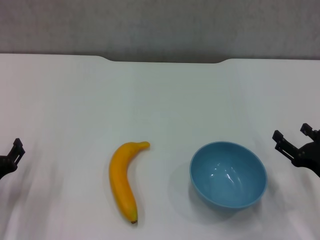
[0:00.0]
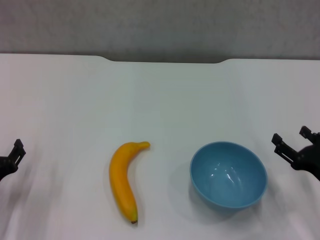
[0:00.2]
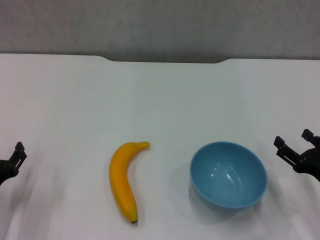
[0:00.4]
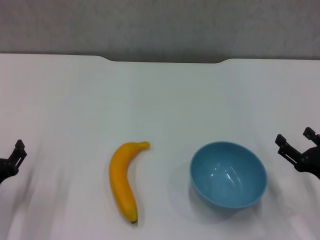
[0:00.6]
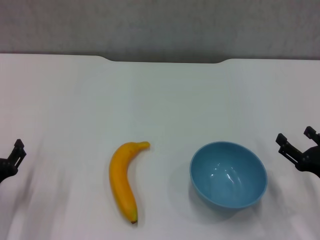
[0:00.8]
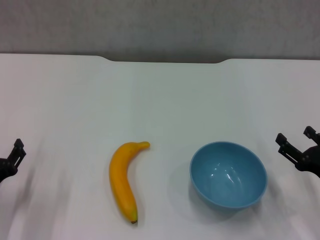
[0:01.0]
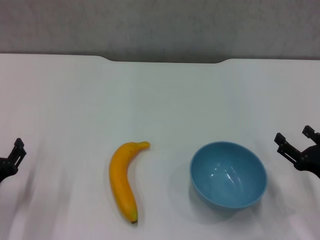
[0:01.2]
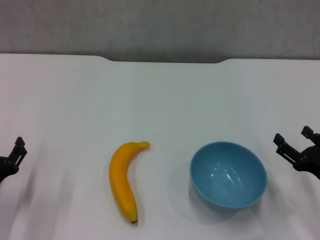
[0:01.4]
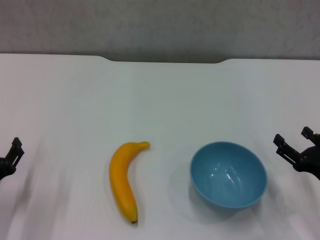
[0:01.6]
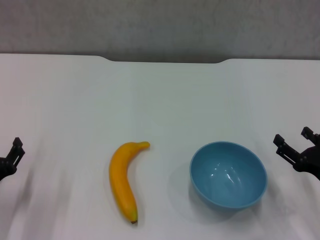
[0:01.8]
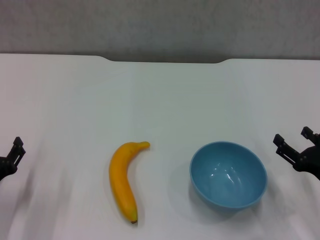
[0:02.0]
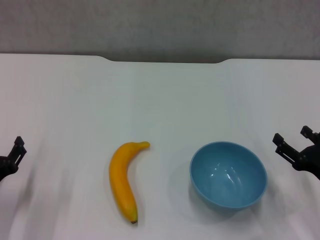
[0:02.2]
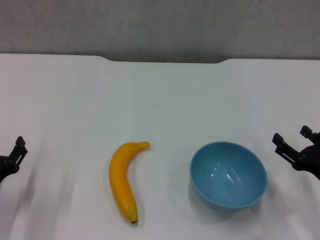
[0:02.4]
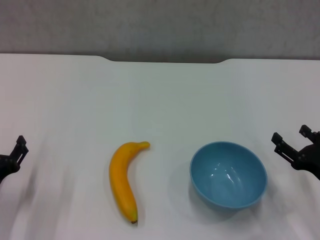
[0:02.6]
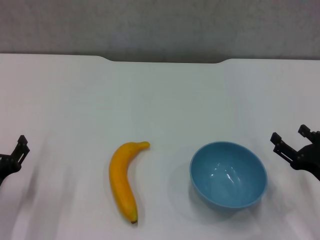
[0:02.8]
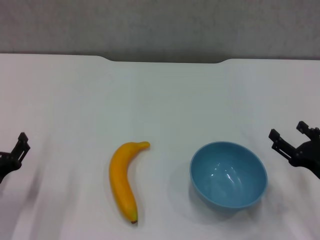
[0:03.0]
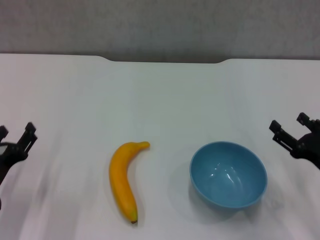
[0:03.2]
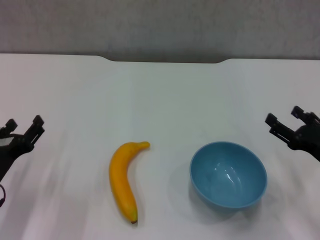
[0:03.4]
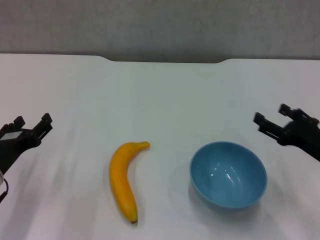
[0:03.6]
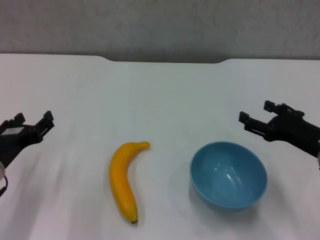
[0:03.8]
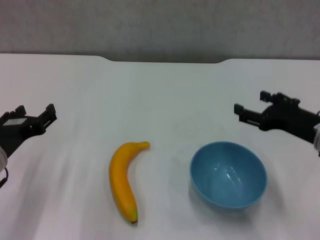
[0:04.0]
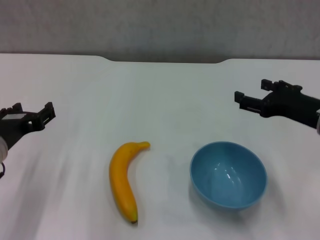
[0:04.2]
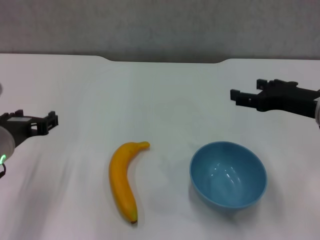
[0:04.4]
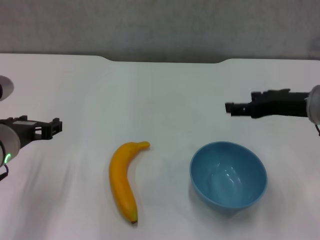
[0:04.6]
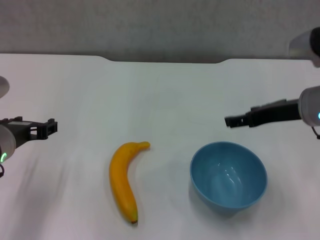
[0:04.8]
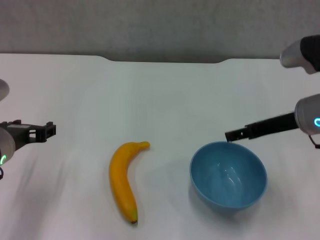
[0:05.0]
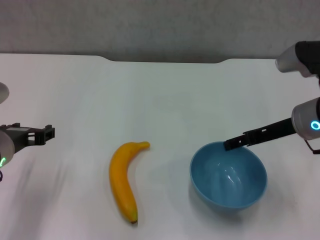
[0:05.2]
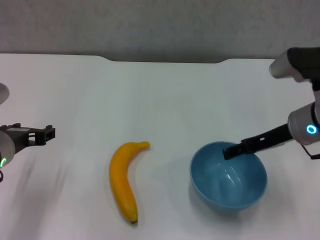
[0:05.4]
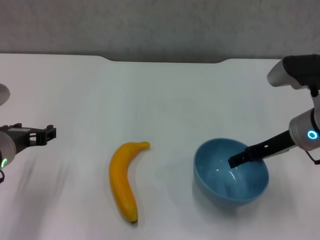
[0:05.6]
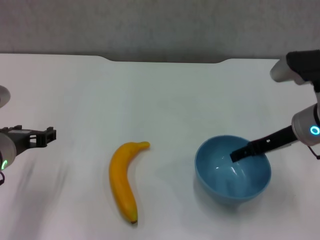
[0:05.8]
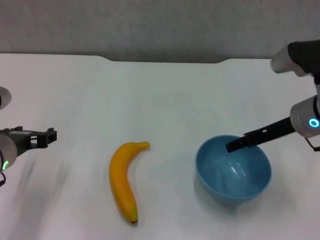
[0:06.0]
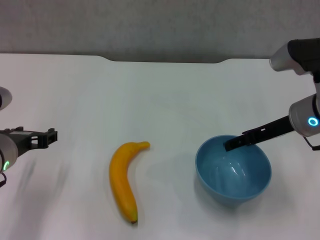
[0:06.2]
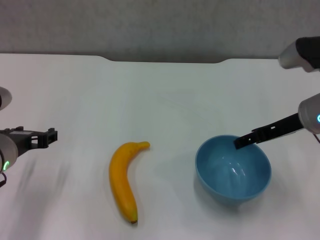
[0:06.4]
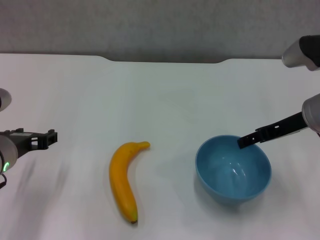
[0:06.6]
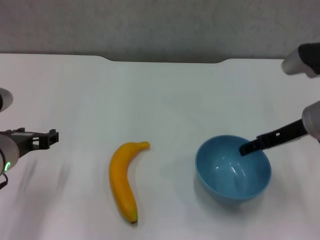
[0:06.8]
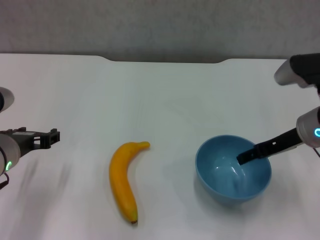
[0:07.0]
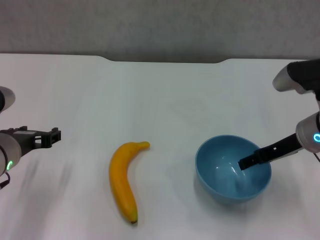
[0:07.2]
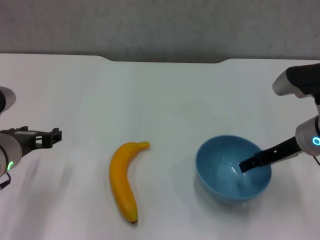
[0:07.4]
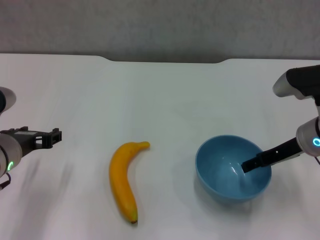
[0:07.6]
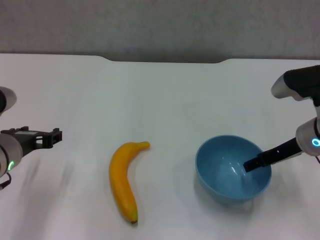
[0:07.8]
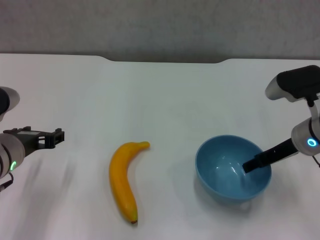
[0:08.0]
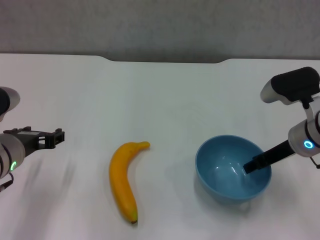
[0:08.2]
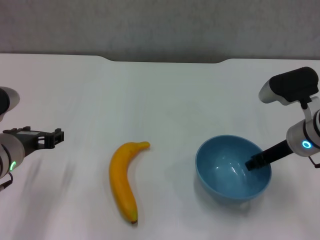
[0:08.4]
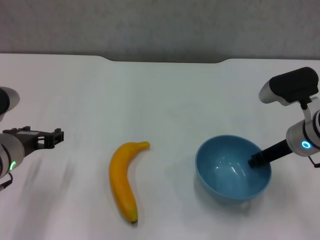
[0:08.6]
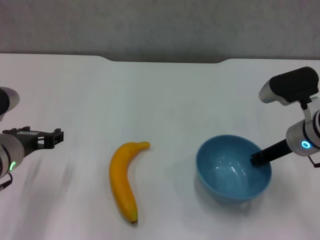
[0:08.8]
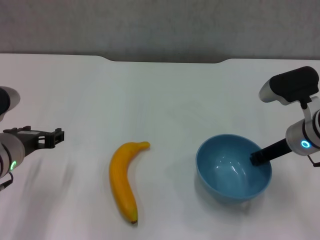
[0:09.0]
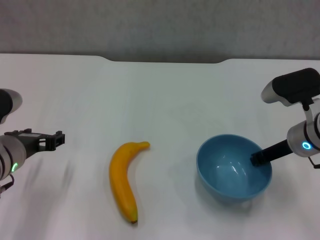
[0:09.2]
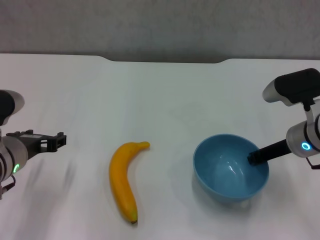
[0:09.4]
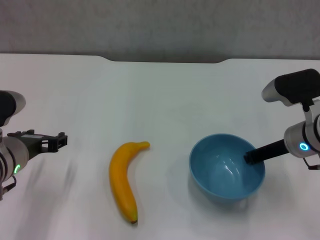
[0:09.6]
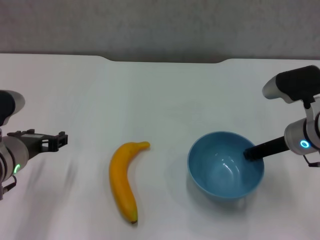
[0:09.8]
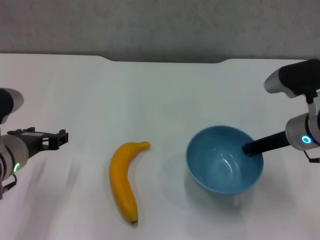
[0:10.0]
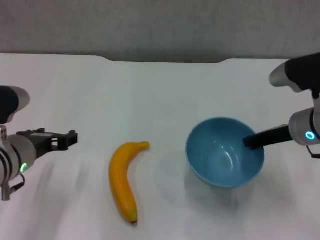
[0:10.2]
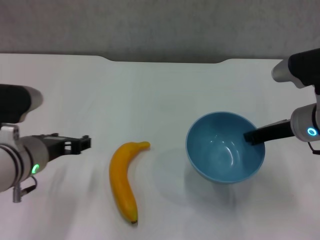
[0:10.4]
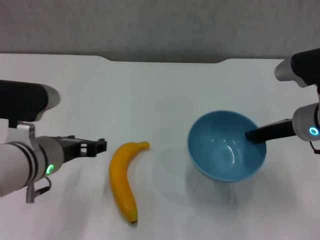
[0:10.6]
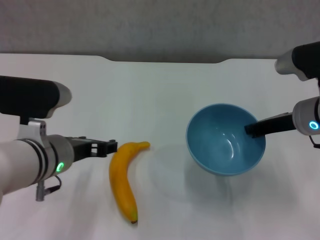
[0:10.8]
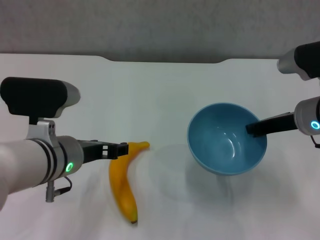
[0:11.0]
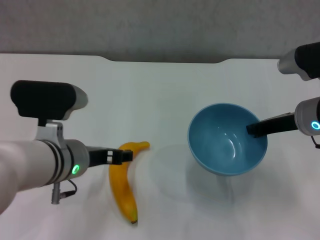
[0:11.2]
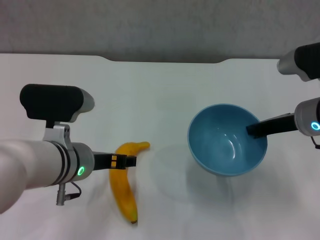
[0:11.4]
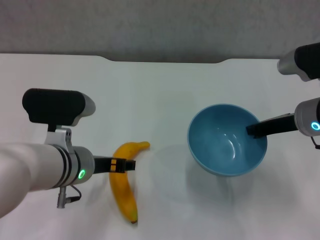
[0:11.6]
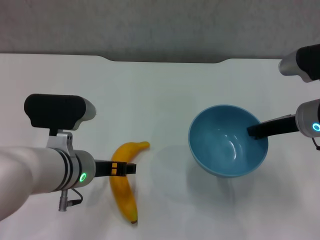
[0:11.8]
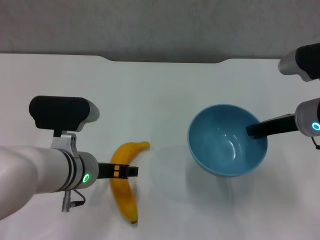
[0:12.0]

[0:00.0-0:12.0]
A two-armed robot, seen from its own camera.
Step, 0:00.0 to 0:09.6: Grasp the blue bowl with right gripper.
Step, 0:09.8 to 0:10.4: Lift the blue bowl with right gripper.
0:00.0 to 0:01.6: The grippers stay close to where they were, moving slightly.
0:01.6 to 0:03.0: Both grippers stay about where they are.
0:03.0 to 0:04.4: The left gripper travels upward, to the right and forward by about 15 cm, while the right gripper moves upward and forward, some 15 cm.
0:06.0 to 0:07.6: The grippers stay close to where they were, moving slightly.
0:07.6 to 0:09.0: The right gripper closes its fingers.
0:09.0 to 0:10.4: The grippers move only a little.
0:10.4 to 0:12.0: The left gripper goes about 5 cm to the right.

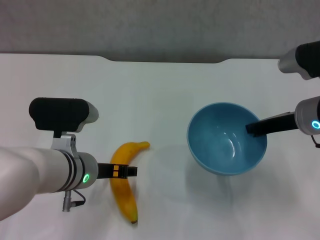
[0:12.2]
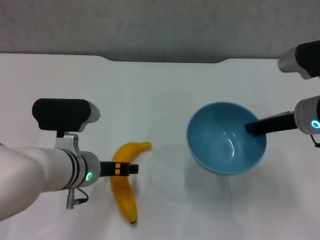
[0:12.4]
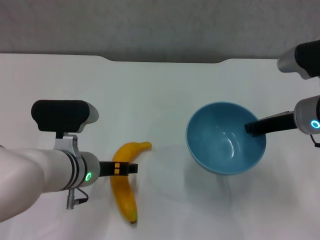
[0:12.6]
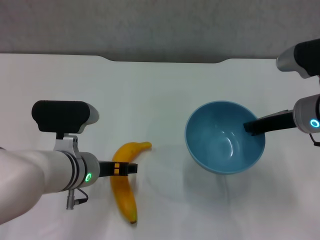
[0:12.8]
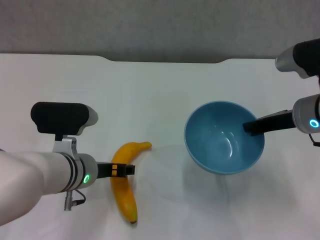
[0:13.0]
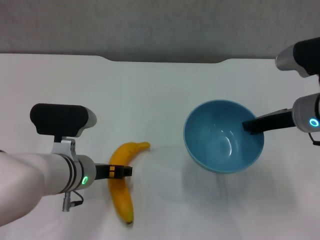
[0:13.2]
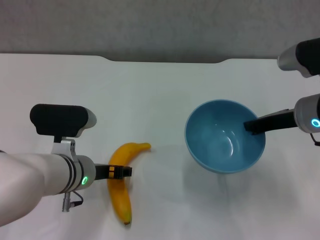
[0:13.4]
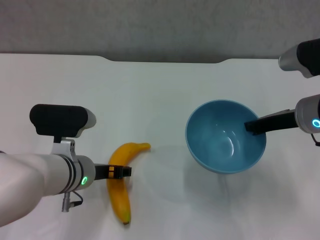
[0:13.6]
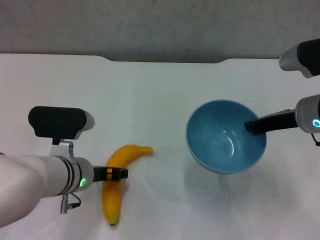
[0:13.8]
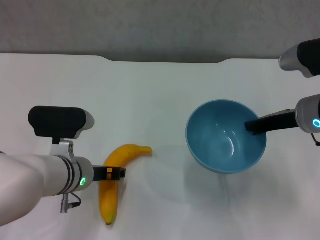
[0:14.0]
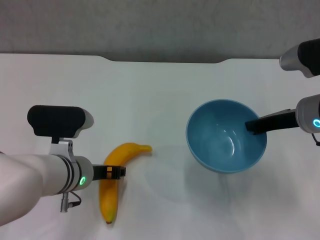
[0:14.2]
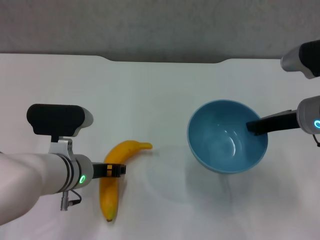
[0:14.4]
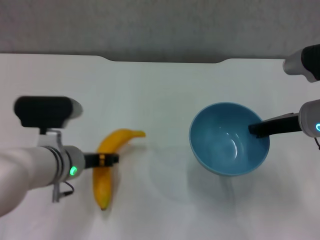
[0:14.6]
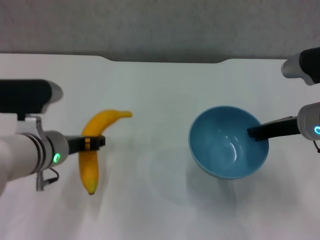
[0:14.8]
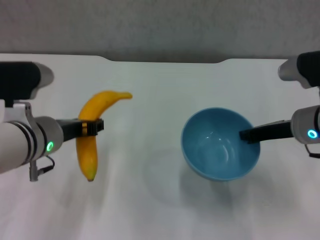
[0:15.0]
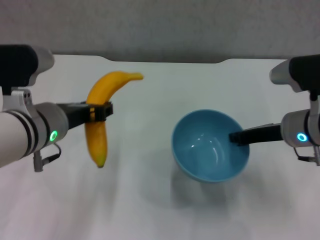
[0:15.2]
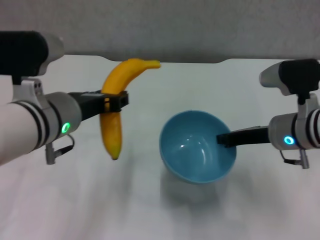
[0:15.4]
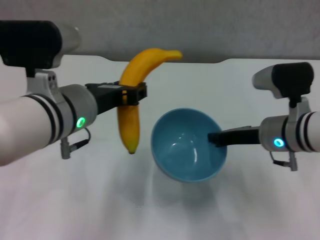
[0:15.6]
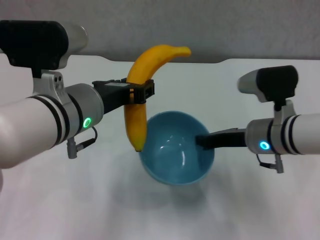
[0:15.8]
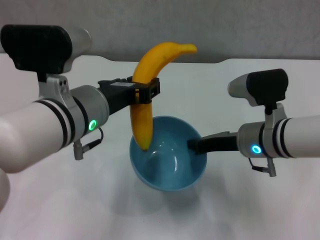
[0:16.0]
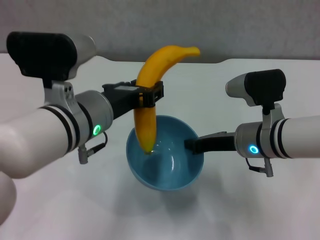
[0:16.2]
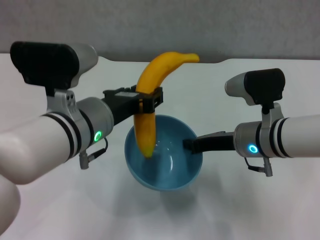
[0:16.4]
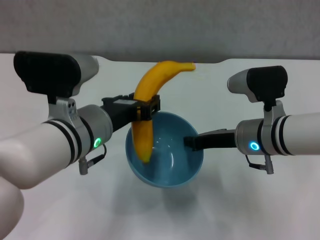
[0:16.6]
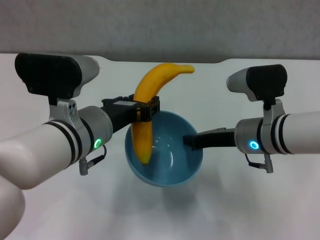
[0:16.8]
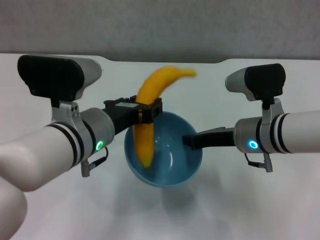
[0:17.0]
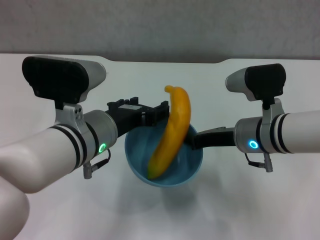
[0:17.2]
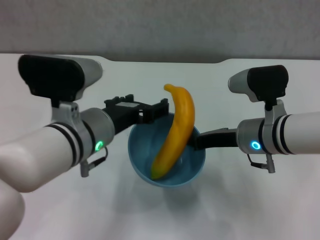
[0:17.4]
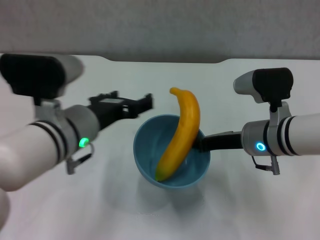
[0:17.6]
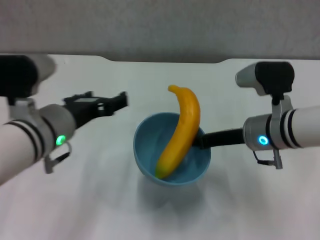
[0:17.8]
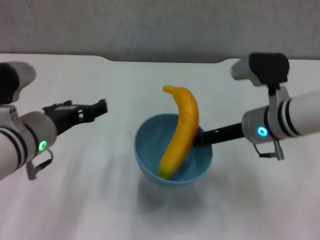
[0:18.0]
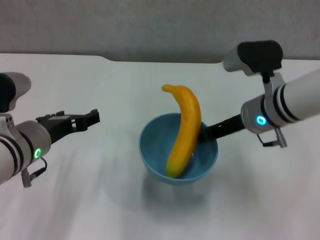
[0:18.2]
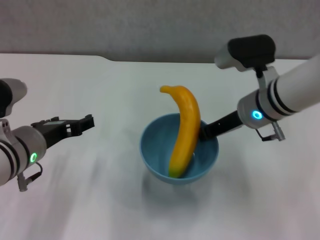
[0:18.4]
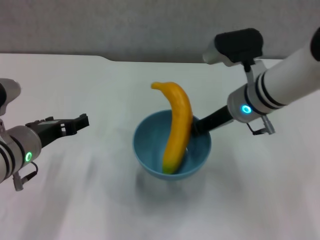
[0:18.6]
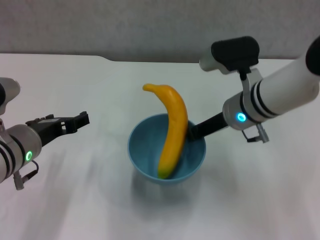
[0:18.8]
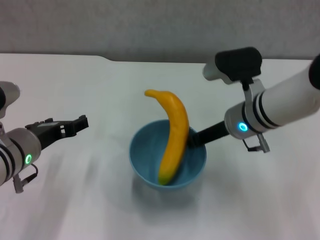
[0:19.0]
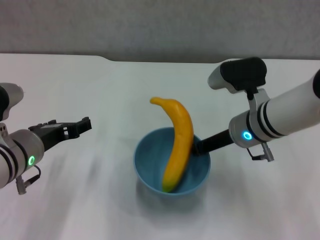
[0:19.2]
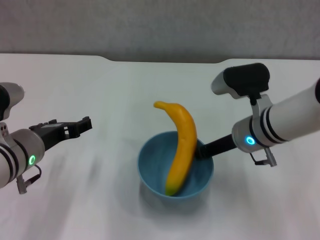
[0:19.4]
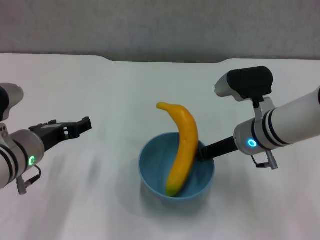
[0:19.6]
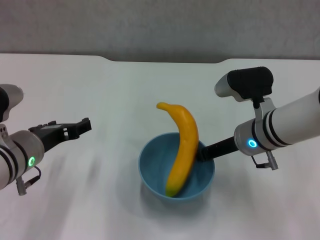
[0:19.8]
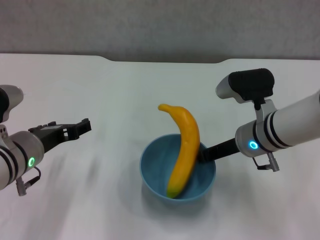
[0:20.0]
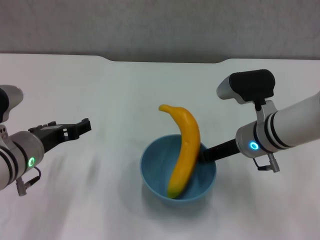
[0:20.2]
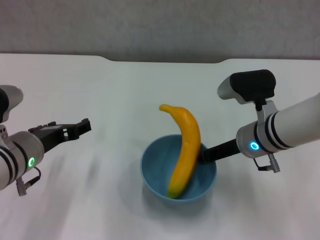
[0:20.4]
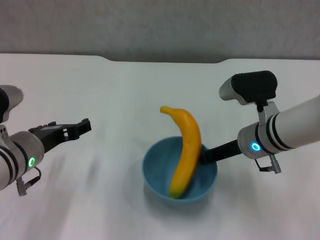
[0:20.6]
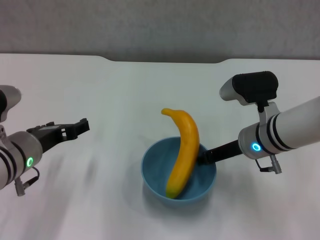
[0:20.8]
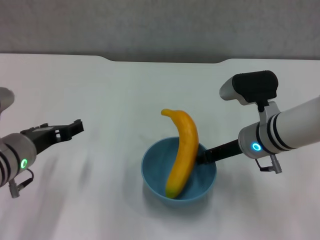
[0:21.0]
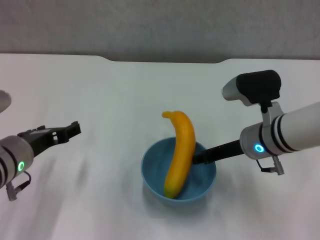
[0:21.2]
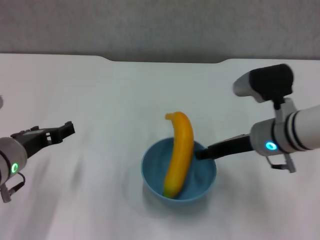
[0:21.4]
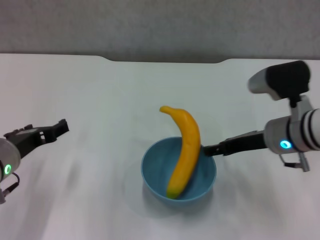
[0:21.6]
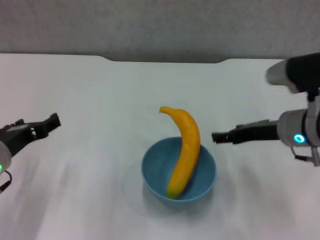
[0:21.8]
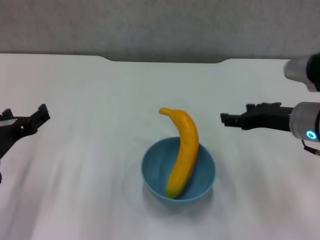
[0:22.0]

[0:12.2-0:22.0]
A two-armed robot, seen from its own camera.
Step, 0:12.2 to 0:14.0: Grasp the banana with left gripper.
Step, 0:14.2 to 0:17.2: Place the banana in the blue bowl with left gripper.
Step, 0:17.6 to 0:21.6: Place the bowl on the table with right gripper.
0:12.2 to 0:13.6: The grippers move only a little.
0:13.6 to 0:15.0: The left gripper heads upward, covering roughly 10 cm, and closes.
0:15.0 to 0:16.4: The left gripper goes approximately 5 cm to the right; the right gripper shifts some 10 cm to the left.
0:16.4 to 0:17.8: The left gripper travels to the left by about 5 cm, and opens up.
0:17.8 to 0:19.2: The left gripper ends up approximately 5 cm from where it was.
0:19.2 to 0:20.6: The grippers stay close to where they were, moving slightly.
0:20.6 to 0:22.0: The right gripper heads to the right and upward, covering roughly 10 cm, and opens up; the left gripper changes place by roughly 5 cm.
